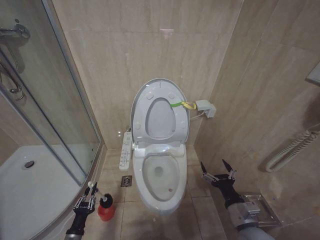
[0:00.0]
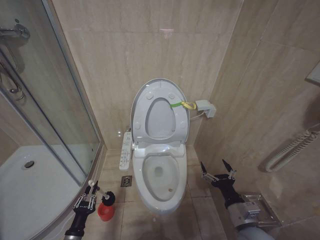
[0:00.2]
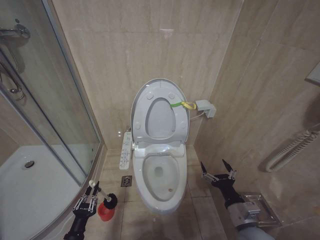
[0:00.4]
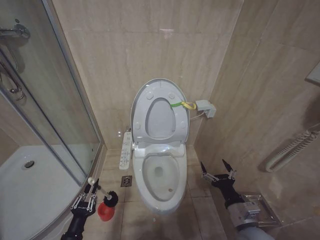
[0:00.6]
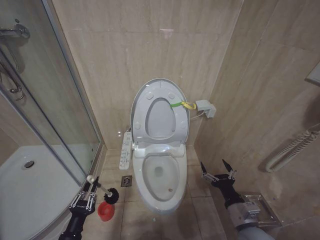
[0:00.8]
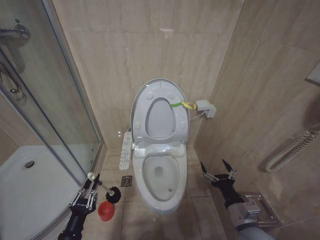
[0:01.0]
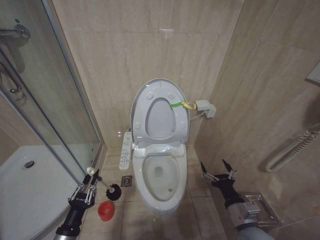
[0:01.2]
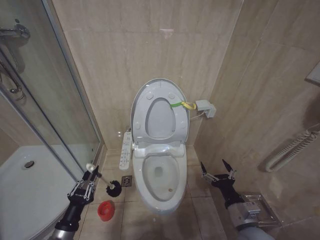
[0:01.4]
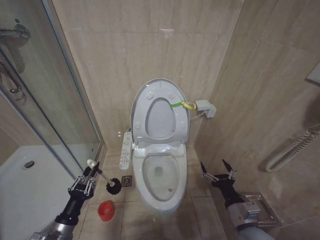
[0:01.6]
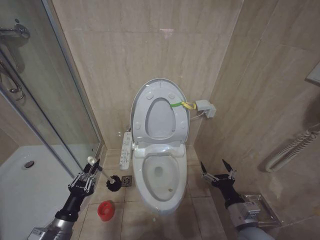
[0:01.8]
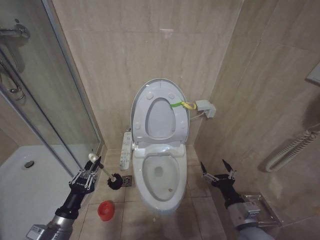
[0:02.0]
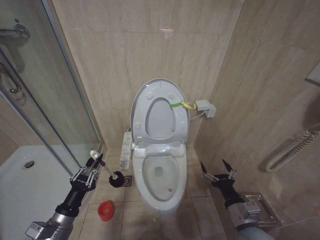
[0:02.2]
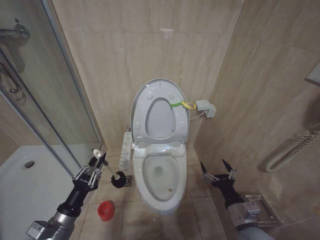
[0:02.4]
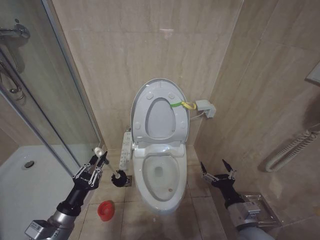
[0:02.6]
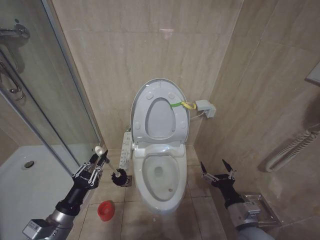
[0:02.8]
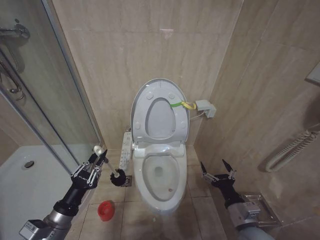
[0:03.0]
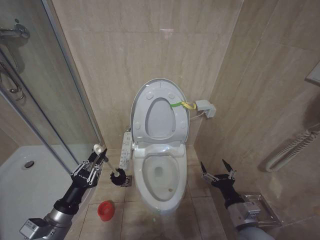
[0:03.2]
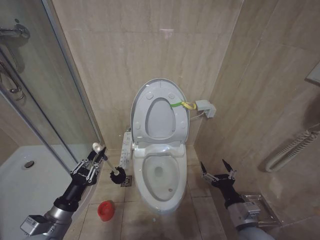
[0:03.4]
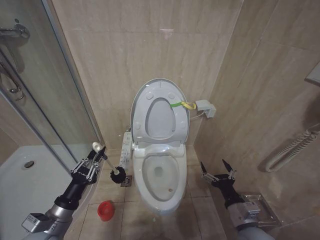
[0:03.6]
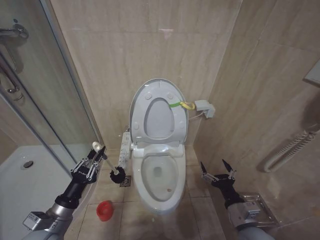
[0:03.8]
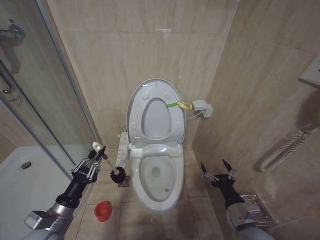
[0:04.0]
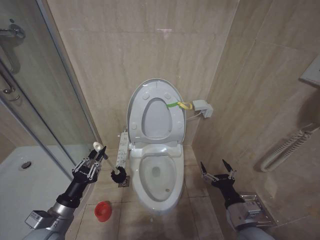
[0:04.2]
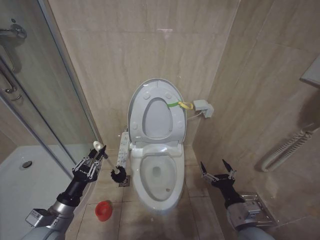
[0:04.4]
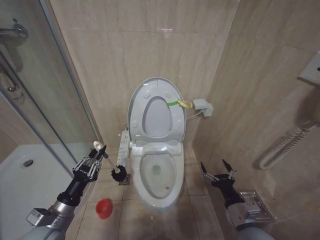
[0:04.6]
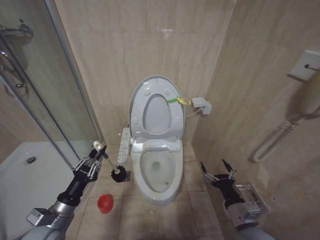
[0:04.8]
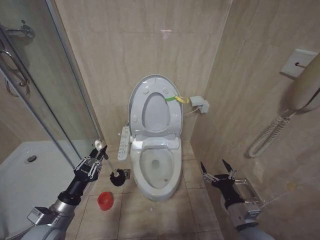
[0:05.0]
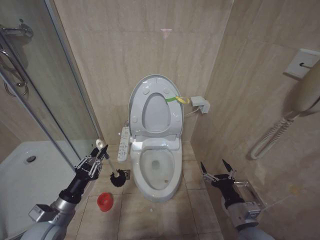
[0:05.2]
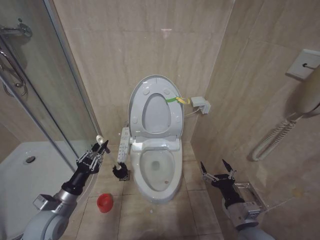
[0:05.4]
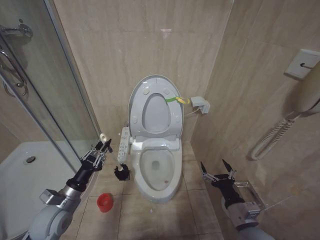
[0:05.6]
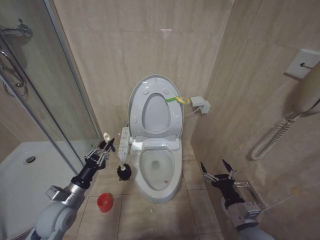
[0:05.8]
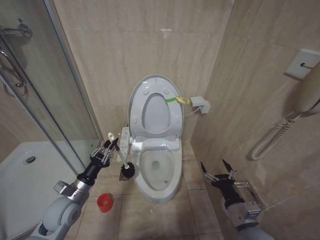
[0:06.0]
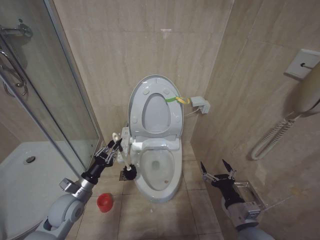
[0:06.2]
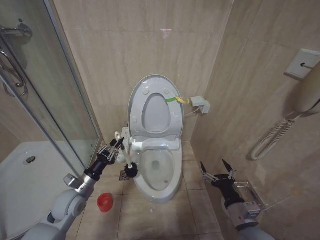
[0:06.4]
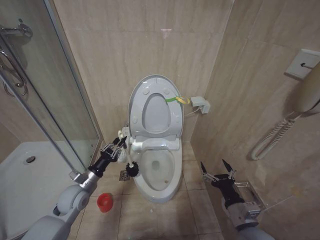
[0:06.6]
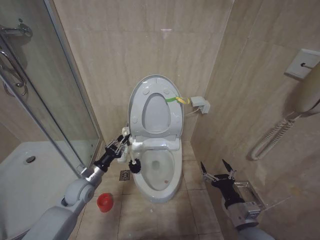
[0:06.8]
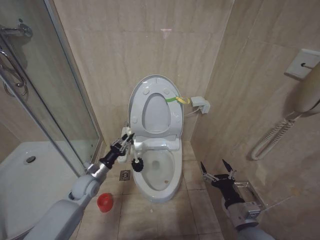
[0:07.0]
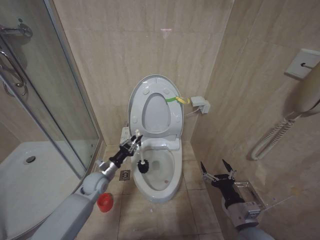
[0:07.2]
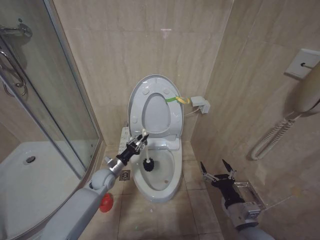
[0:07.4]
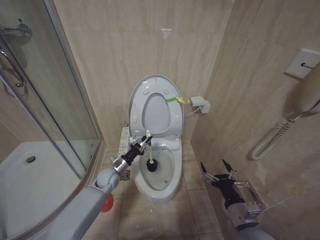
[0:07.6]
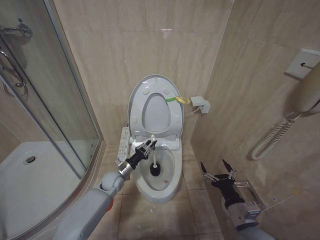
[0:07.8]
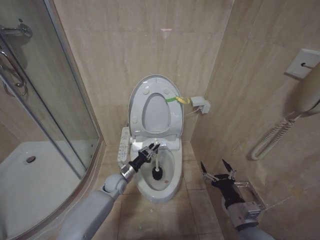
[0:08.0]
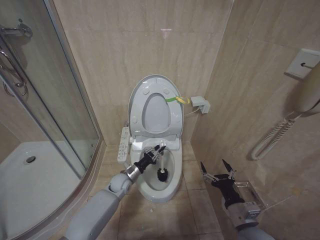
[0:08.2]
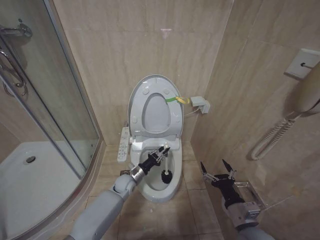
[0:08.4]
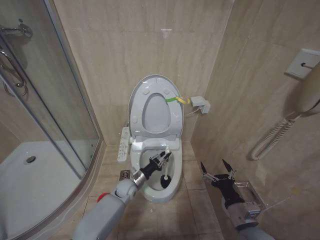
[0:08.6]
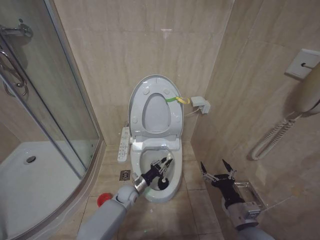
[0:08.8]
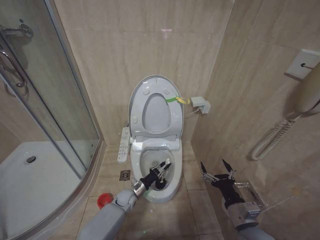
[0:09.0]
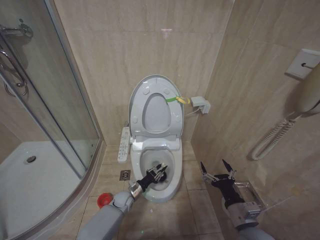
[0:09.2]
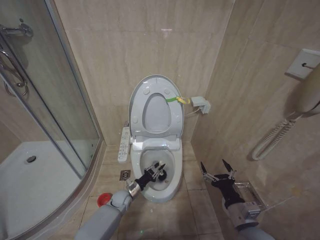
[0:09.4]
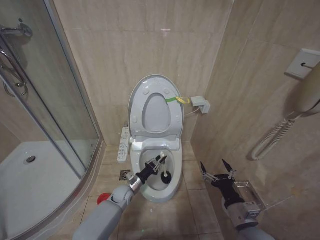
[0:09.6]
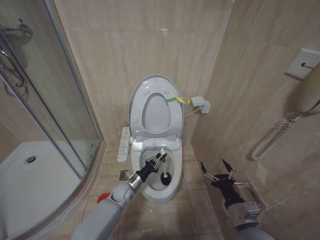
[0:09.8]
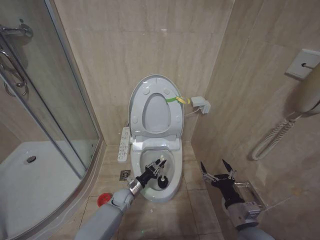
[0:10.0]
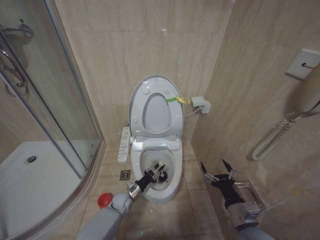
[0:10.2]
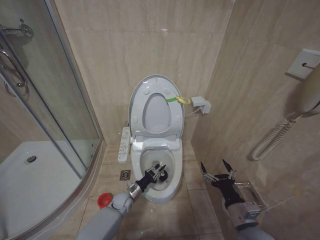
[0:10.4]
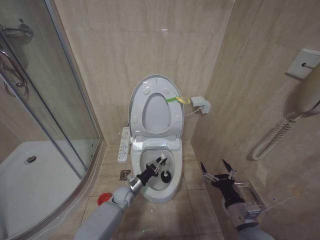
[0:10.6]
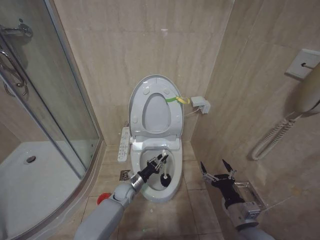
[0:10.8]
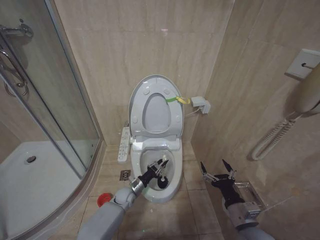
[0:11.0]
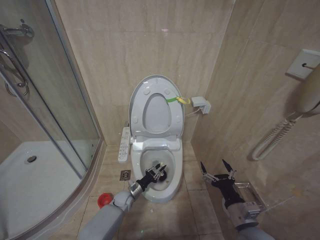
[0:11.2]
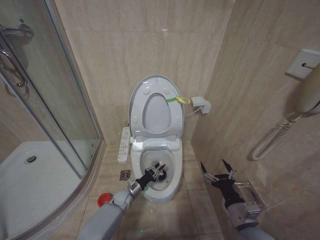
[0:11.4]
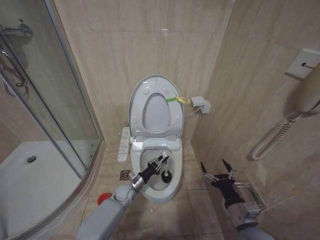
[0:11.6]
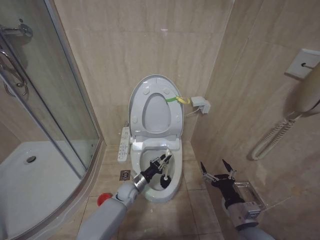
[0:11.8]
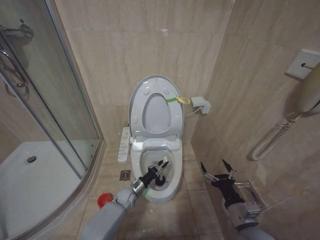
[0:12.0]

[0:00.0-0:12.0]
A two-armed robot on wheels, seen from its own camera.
Task of the whole recording: Open the toilet lid, clean the toilet bowl with a toilet brush, close the toilet lid, and flush.
0:00.0 to 0:01.6: The left gripper moves upward, approximately 15 cm.
0:01.6 to 0:03.0: The left gripper travels upward by some 5 cm.
0:03.0 to 0:04.4: There are only small adjustments of the grippers.
0:04.4 to 0:06.0: The left gripper is displaced forward by approximately 10 cm.
0:06.0 to 0:07.6: The left gripper is displaced forward, to the right and downward by about 20 cm.
0:07.6 to 0:09.0: The left gripper goes about 15 cm downward and to the right.
0:09.0 to 0:10.4: The grippers move only a little.
0:10.4 to 0:12.0: The left gripper moves up and down over about 5 cm, changing direction 2 times.

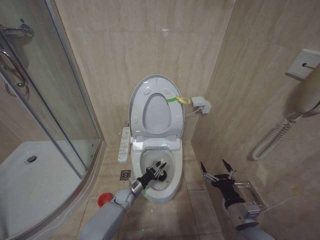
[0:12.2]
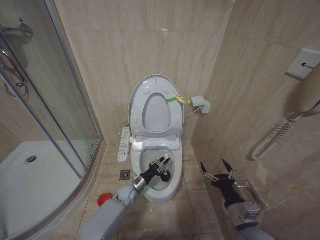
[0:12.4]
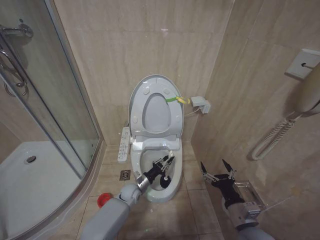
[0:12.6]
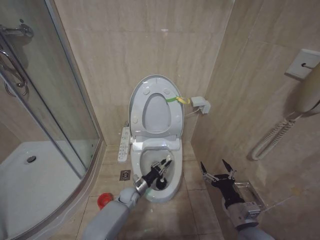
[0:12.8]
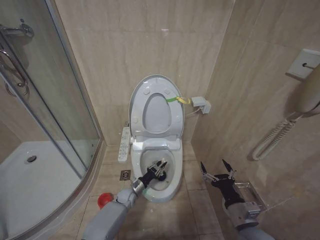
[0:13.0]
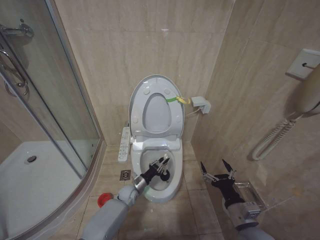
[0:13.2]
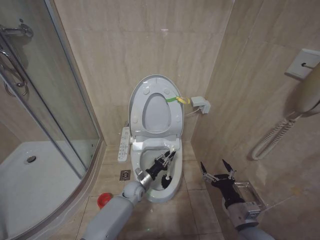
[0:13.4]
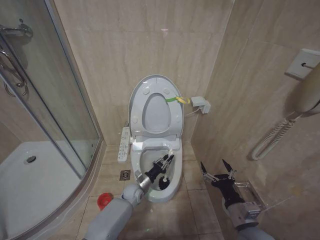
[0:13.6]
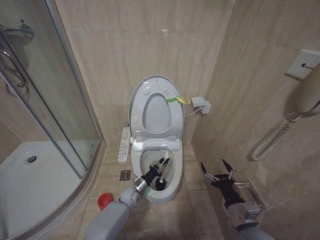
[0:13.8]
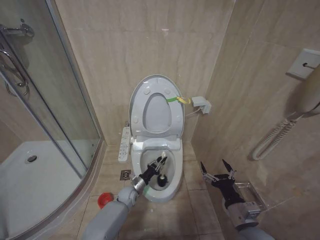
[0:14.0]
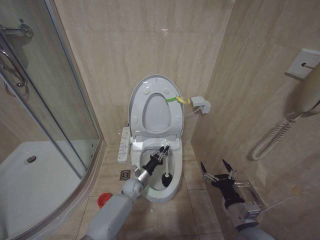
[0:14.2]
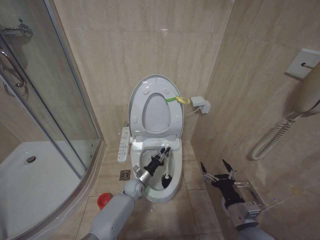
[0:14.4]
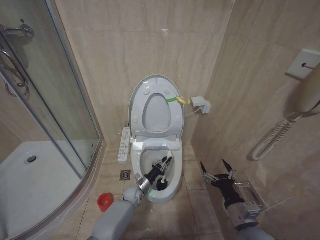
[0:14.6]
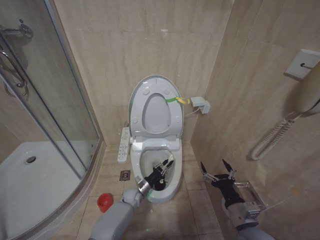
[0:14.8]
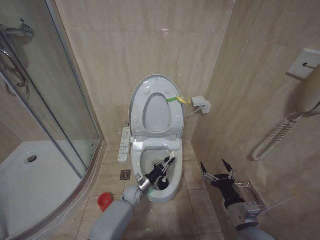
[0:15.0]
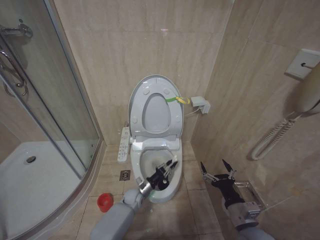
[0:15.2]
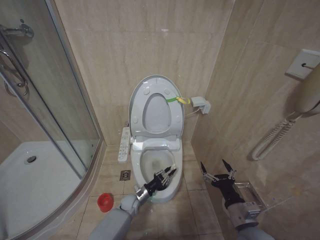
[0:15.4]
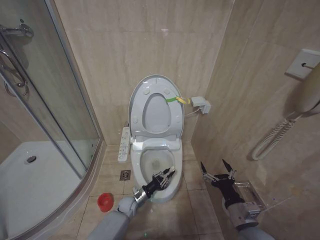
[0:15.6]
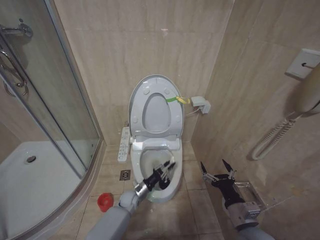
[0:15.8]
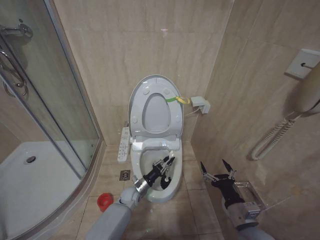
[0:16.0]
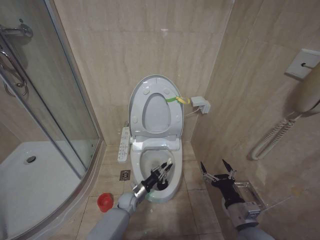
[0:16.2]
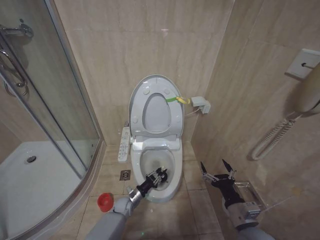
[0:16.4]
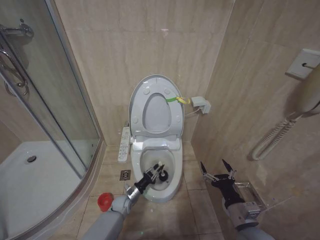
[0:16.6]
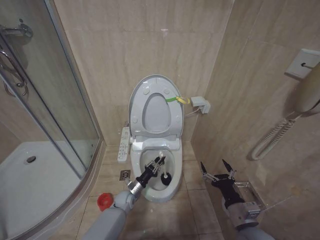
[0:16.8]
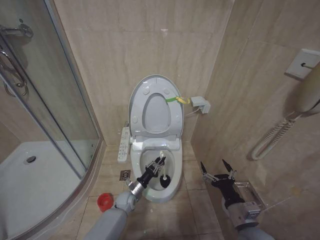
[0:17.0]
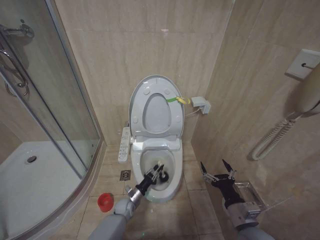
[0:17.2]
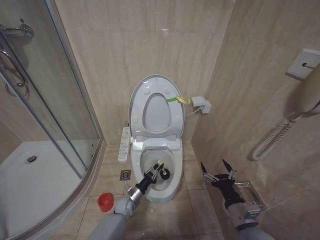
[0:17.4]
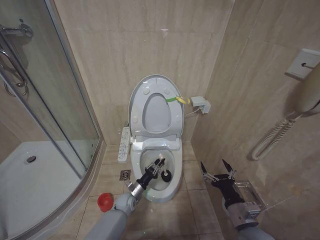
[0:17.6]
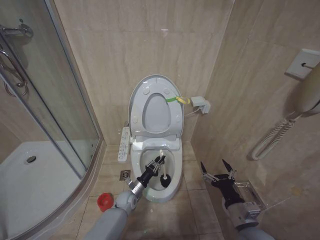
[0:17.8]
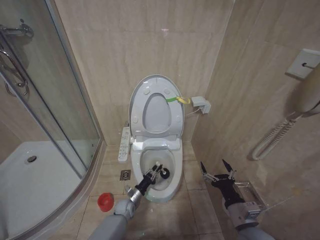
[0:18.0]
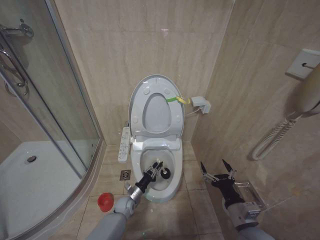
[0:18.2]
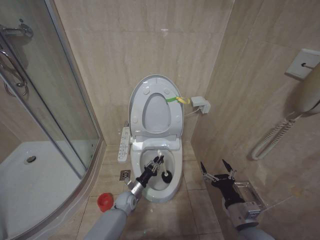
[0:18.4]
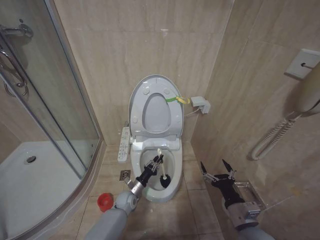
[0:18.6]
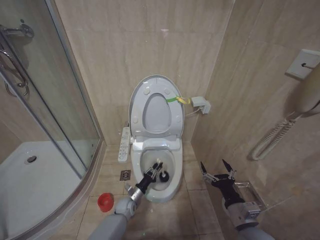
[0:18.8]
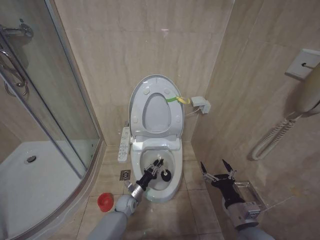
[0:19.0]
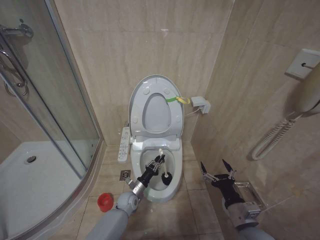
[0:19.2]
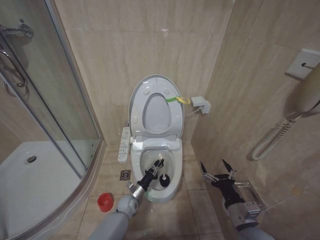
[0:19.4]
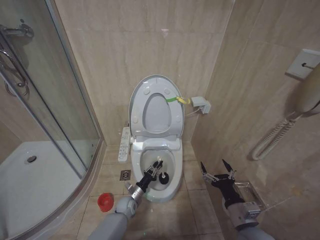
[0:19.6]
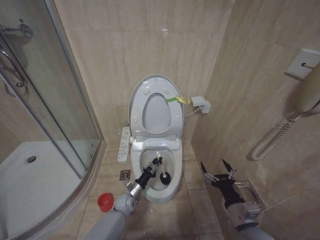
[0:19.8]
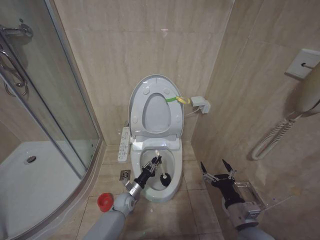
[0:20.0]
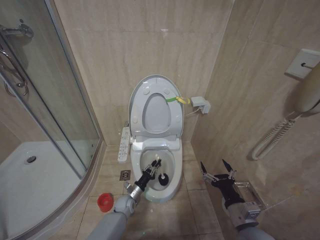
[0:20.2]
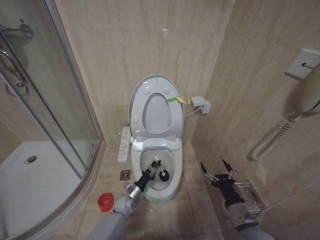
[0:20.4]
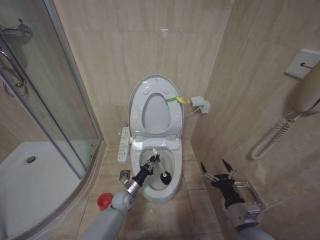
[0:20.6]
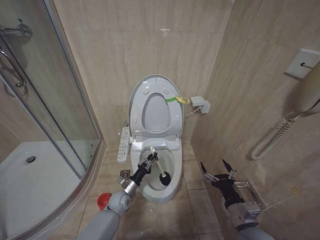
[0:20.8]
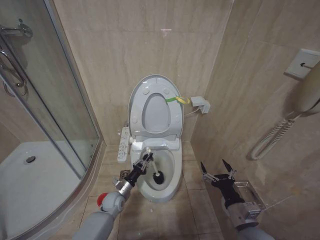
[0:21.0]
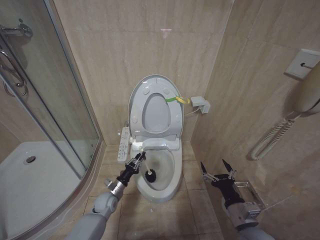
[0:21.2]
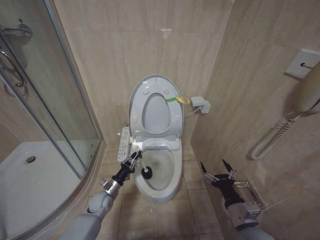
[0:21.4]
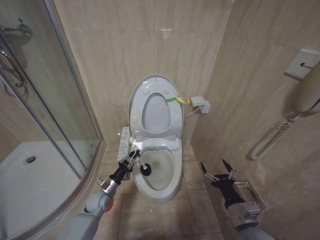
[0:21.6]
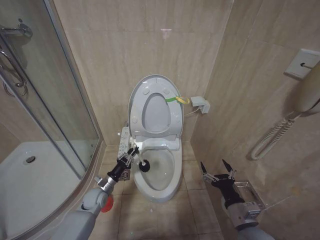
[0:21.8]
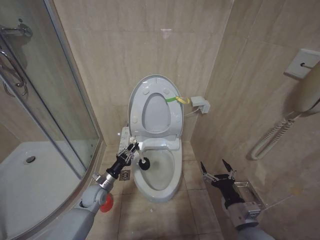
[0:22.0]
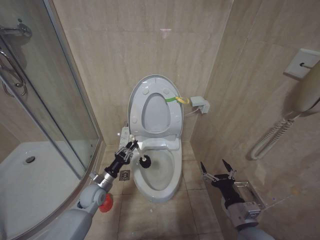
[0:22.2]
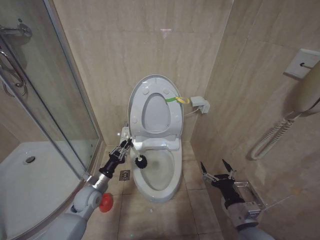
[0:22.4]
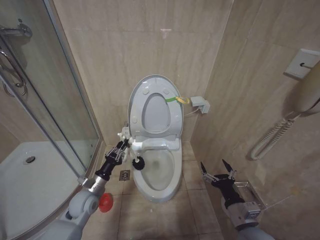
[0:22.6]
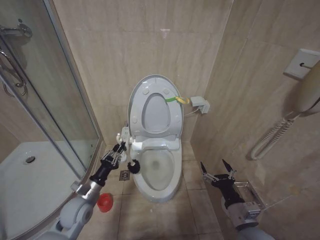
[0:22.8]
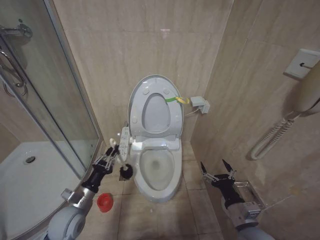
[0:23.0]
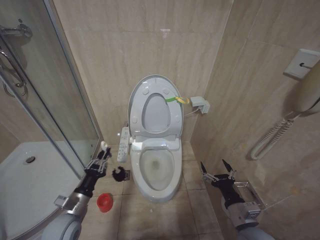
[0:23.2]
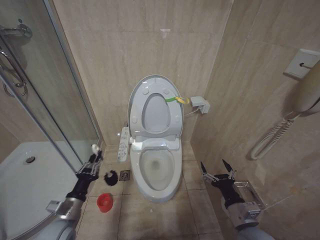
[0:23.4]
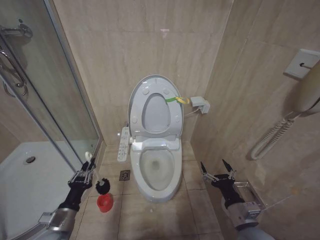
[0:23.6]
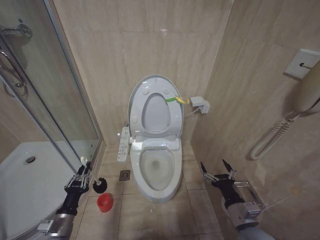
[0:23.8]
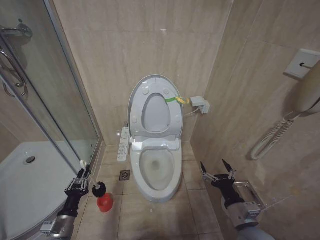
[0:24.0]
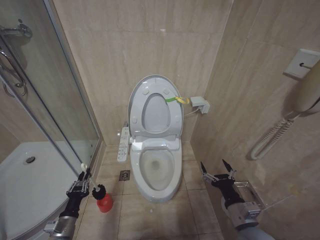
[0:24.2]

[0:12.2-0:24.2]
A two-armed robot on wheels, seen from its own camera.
Task of the whole recording: Open the toilet lid, clean the toilet bowl with a toilet brush, close the toilet lid, and flush.
0:12.2 to 0:13.8: The left gripper moves up and down over roughly 5 cm, changing direction 2 times.
0:13.8 to 0:15.2: The grippers stay close to where they were, moving slightly.
0:15.2 to 0:16.6: The left gripper swings up and down, about 5 cm each way, with 2 reversals.
0:16.6 to 0:18.2: The left gripper goes up and down, roughly 5 cm each way, reversing 3 times.
0:19.8 to 0:21.2: The left gripper travels to the left by roughly 5 cm.
0:21.2 to 0:22.6: The left gripper travels upward and to the left by approximately 10 cm.
0:22.6 to 0:24.2: The left gripper moves backward and to the left, roughly 15 cm.
